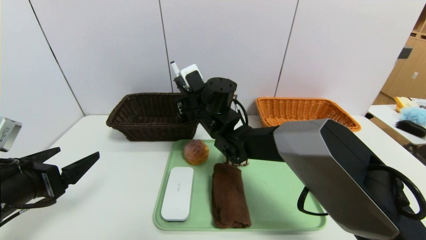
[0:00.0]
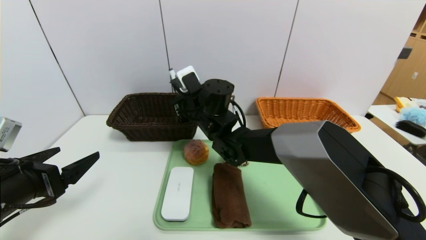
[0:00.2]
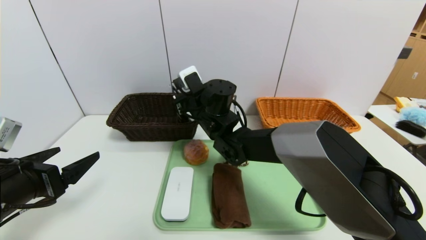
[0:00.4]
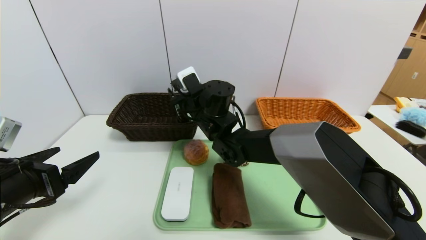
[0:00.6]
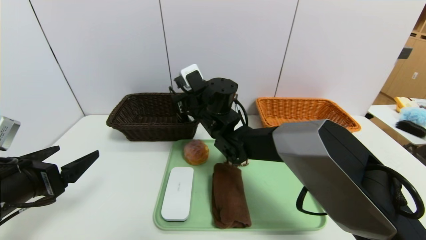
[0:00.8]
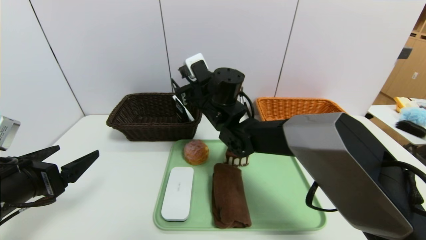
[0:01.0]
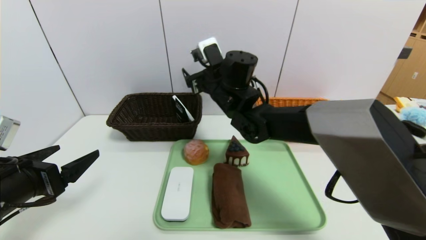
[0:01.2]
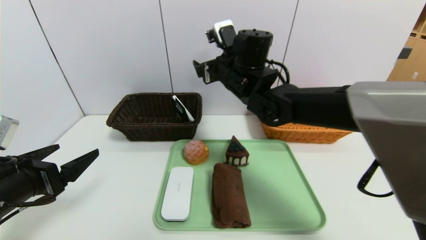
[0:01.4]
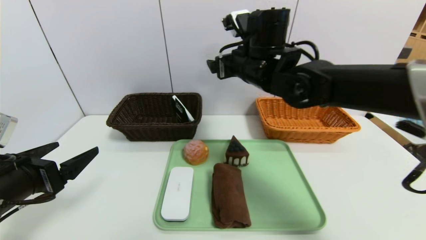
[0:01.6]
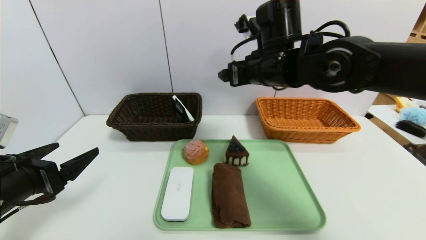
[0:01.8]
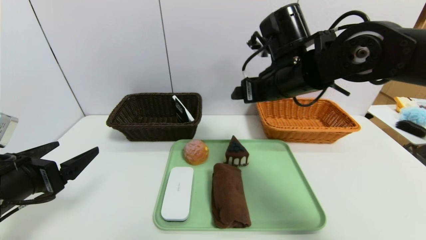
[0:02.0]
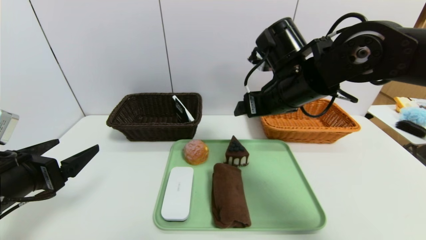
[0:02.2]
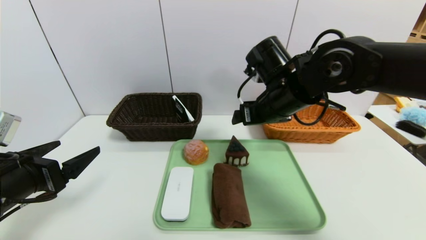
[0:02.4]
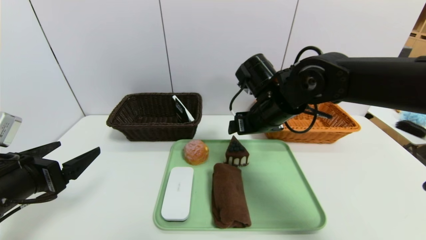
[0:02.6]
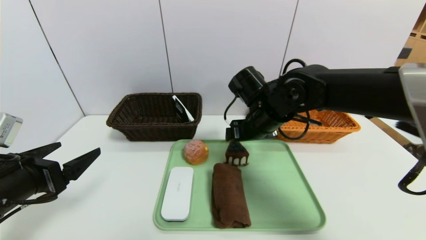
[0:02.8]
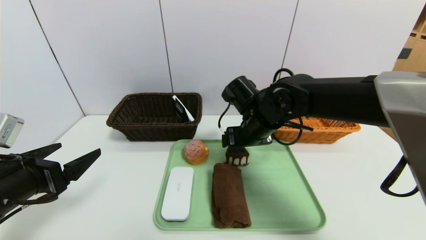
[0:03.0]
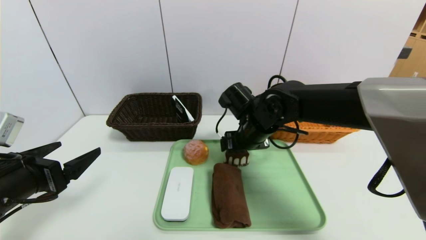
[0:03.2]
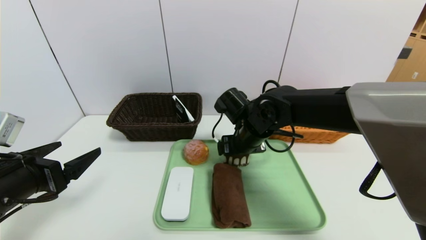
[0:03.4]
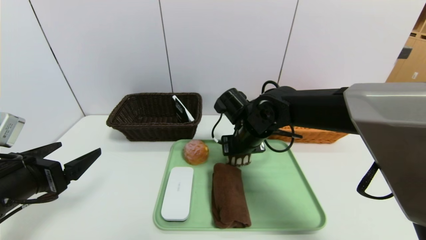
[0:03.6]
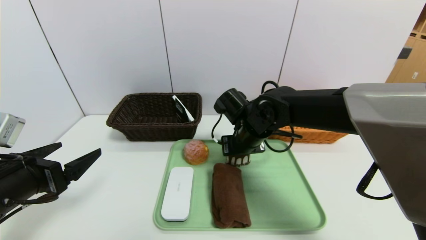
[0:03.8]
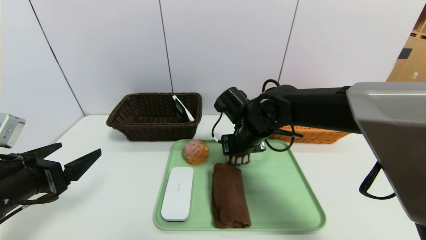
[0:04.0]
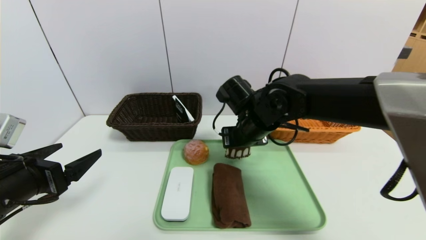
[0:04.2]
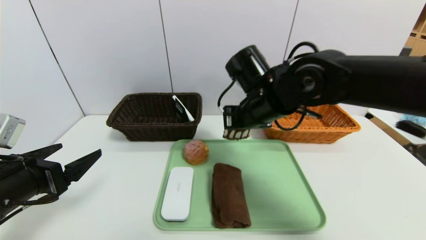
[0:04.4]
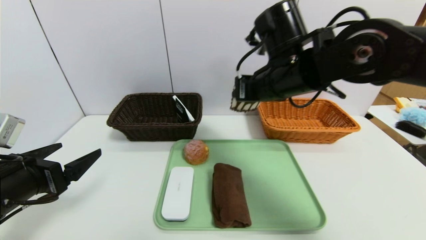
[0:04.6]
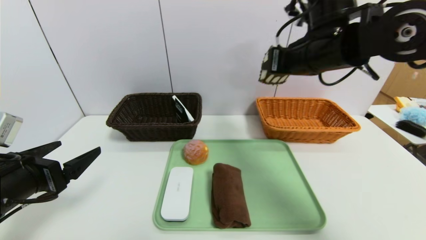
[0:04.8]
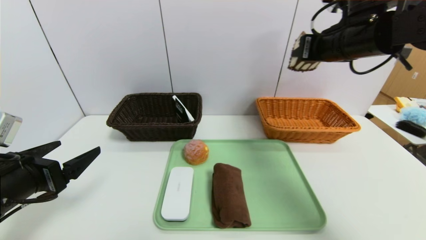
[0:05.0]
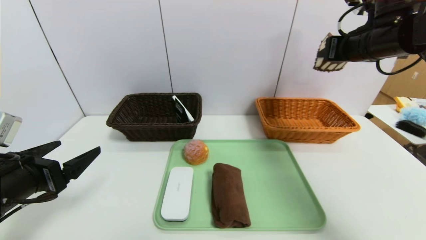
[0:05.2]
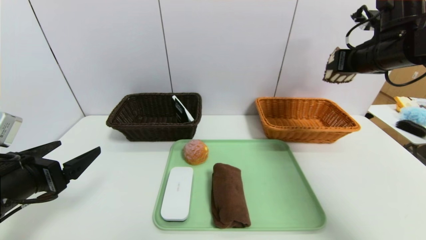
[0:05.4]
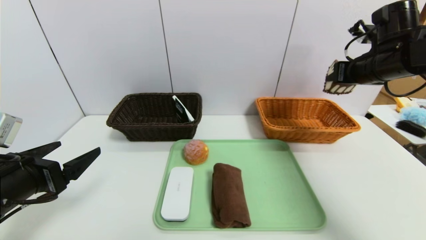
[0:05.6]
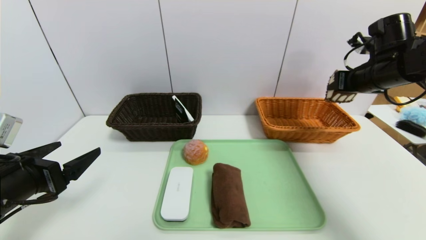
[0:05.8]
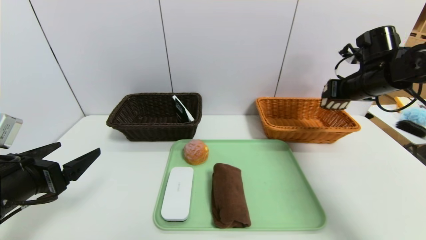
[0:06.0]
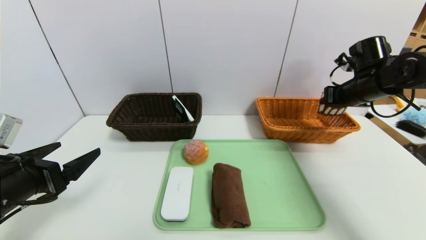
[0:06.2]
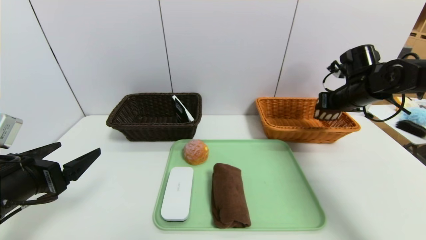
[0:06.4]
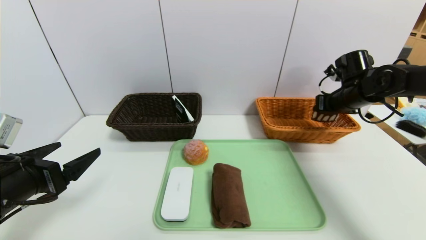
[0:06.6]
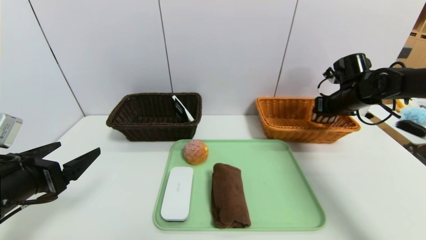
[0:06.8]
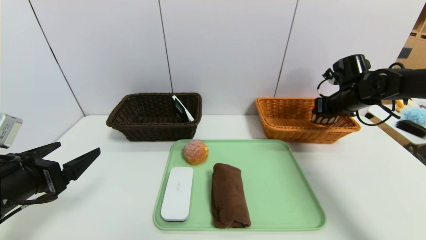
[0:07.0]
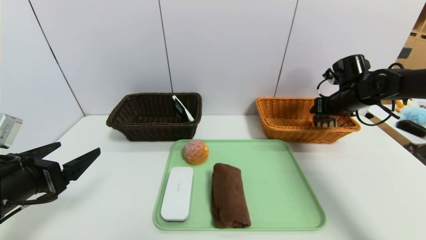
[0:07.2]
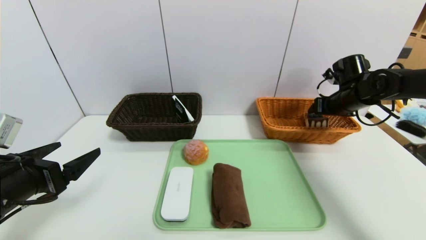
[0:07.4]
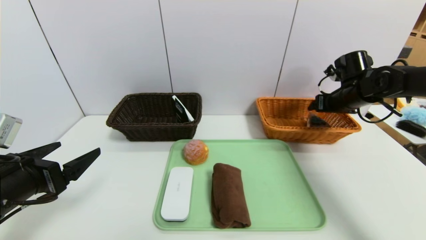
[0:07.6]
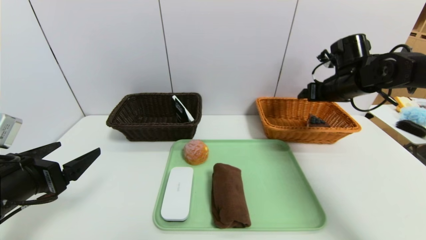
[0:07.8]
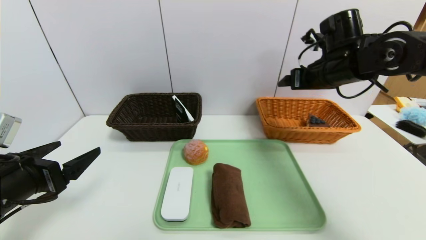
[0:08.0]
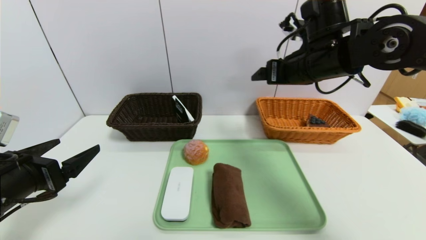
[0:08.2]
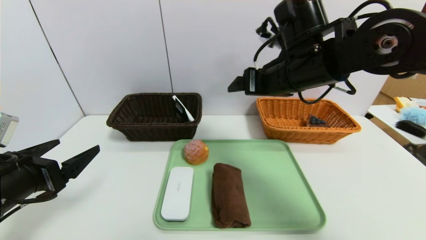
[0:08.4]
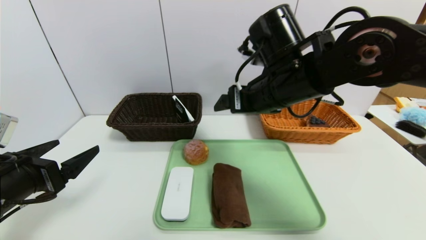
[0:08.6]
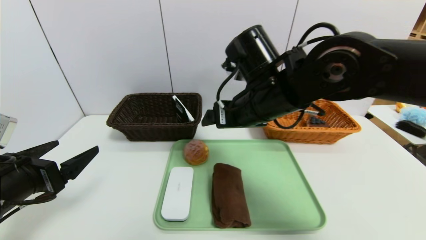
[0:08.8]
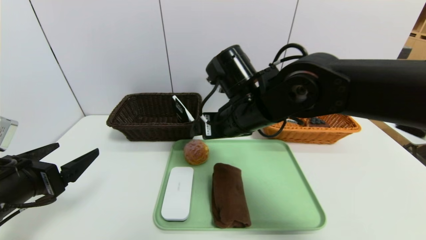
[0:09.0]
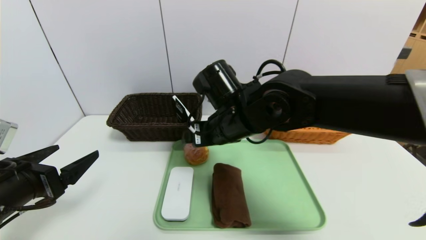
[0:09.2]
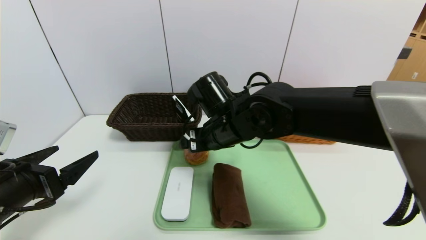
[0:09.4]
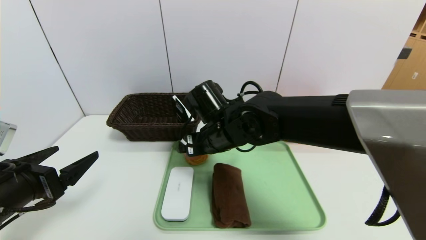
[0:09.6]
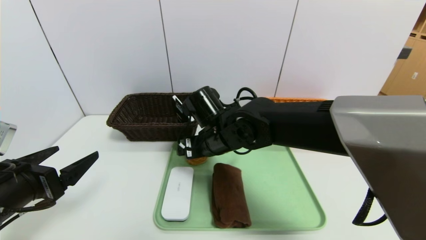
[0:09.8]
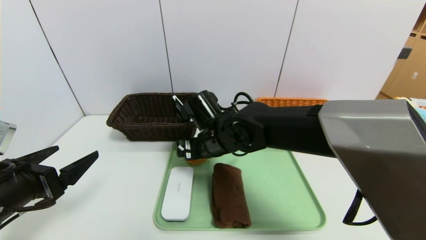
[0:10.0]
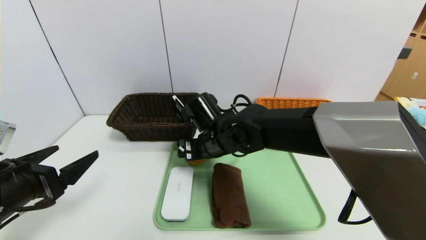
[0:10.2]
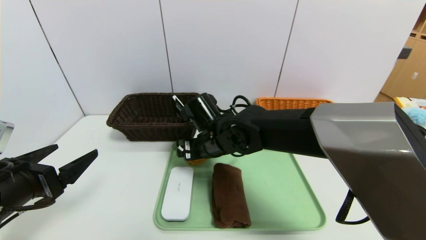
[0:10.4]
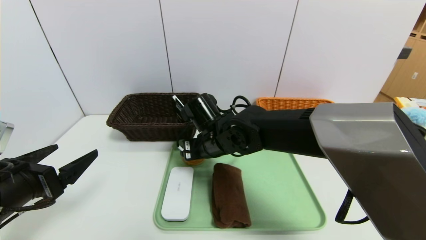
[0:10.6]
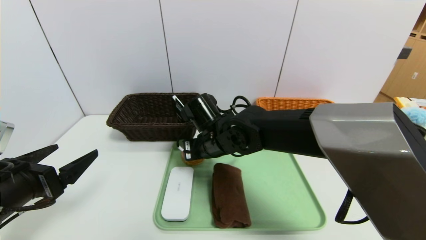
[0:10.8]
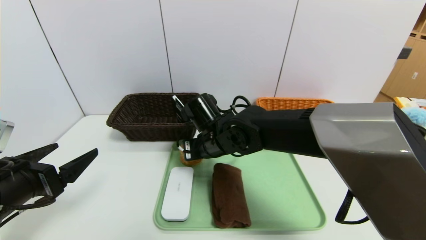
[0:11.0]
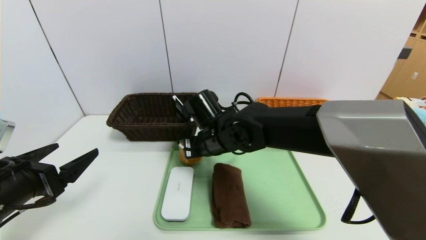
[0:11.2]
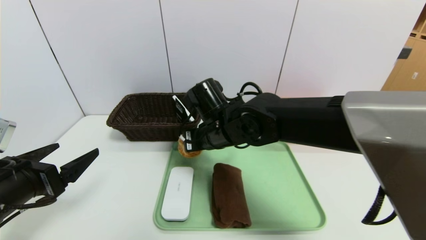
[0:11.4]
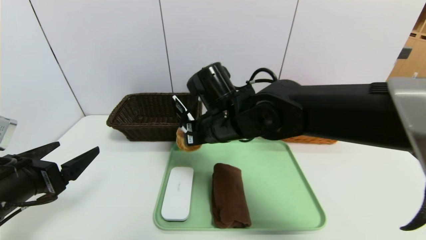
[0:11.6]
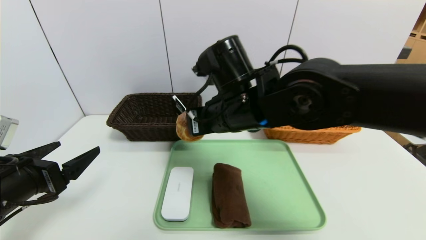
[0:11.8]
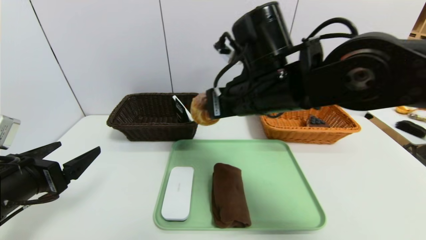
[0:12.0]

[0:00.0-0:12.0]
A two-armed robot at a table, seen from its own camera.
Task of the whole recording: place the food in the right basket with the right gripper, and place the non food items in the left basket with the left gripper.
Step, 0:02.2 to 0:07.8: Grasp the triangle cake and put it in the right basket.
0:00.0 to 0:01.6: The right gripper travels upward and to the right by approximately 15 cm, and opens up.
0:01.6 to 0:03.0: The right gripper goes approximately 10 cm downward.
0:03.0 to 0:04.4: The right gripper goes about 5 cm upward, and closes up.
0:04.4 to 0:06.0: The right gripper travels to the right by some 25 cm.
0:06.0 to 0:07.6: The right gripper changes place by approximately 5 cm, and opens up.
0:07.6 to 0:09.0: The right gripper goes approximately 30 cm to the left and backward.
0:09.0 to 0:10.4: The right gripper heads downward, covering roughly 10 cm.
0:10.4 to 0:12.0: The right gripper shifts approximately 15 cm upward and to the right, and closes up.

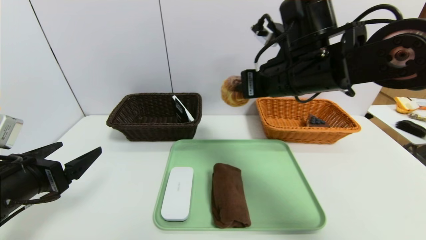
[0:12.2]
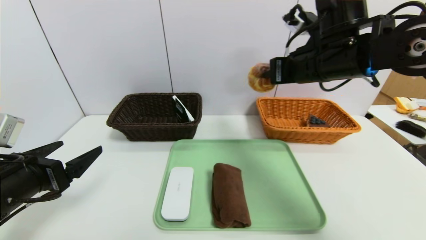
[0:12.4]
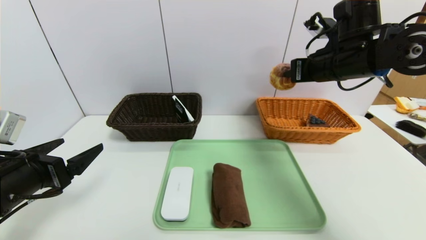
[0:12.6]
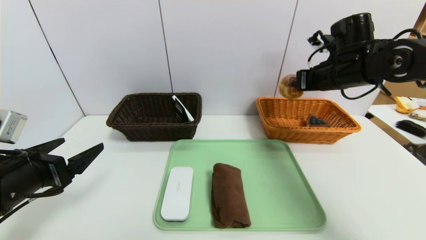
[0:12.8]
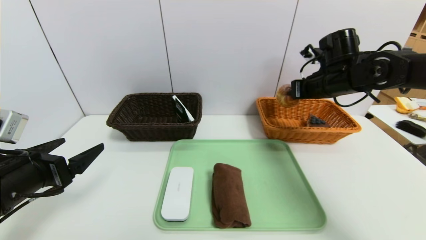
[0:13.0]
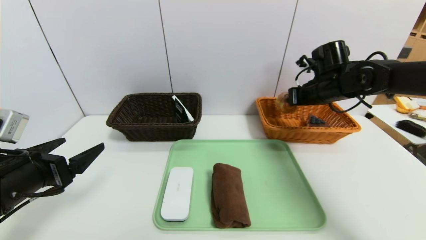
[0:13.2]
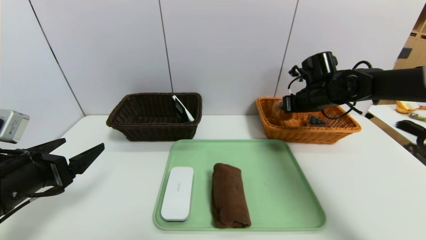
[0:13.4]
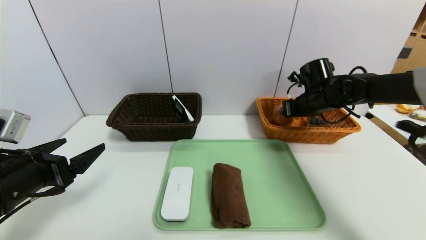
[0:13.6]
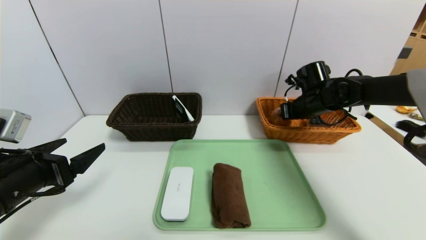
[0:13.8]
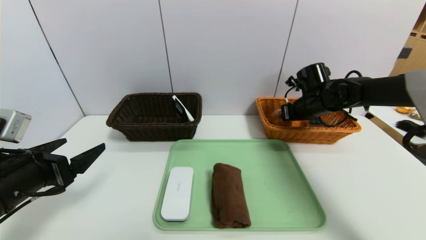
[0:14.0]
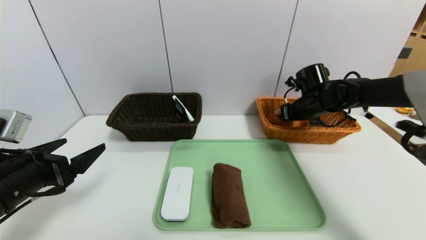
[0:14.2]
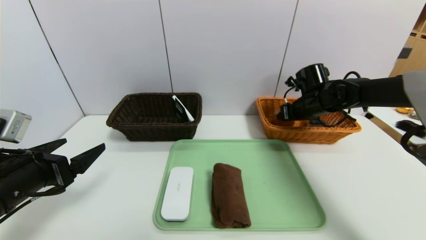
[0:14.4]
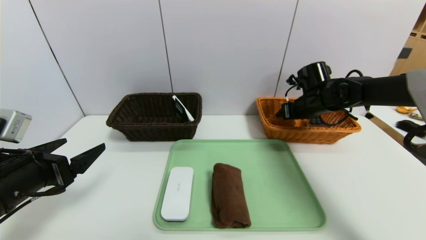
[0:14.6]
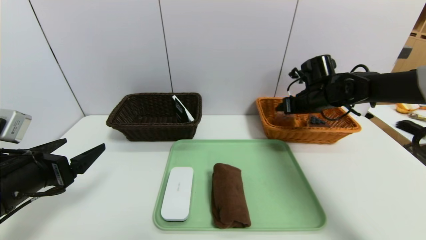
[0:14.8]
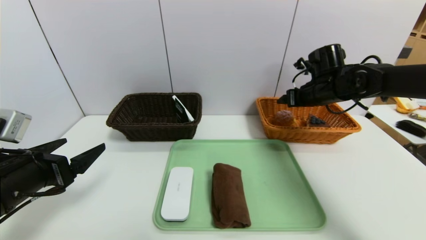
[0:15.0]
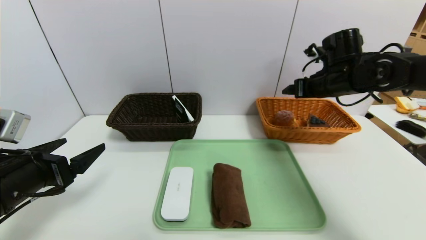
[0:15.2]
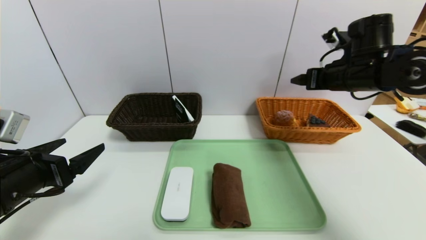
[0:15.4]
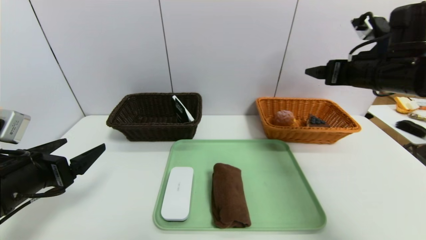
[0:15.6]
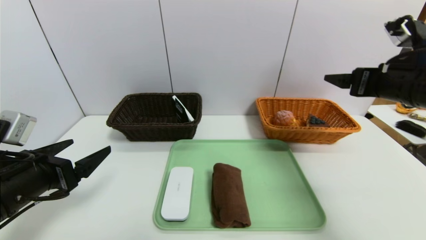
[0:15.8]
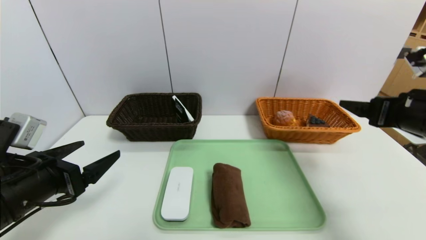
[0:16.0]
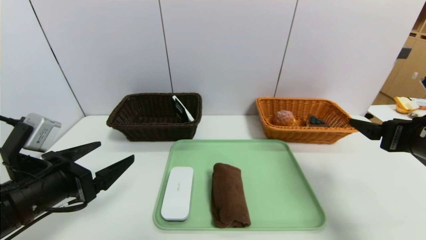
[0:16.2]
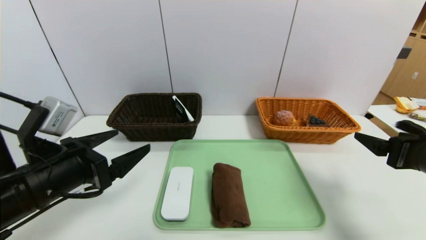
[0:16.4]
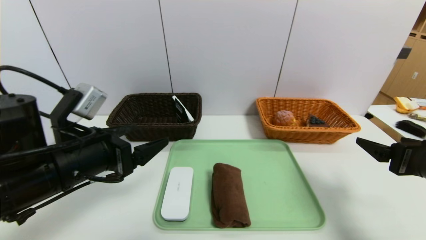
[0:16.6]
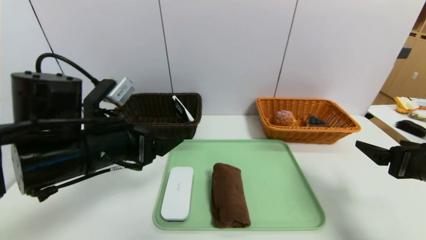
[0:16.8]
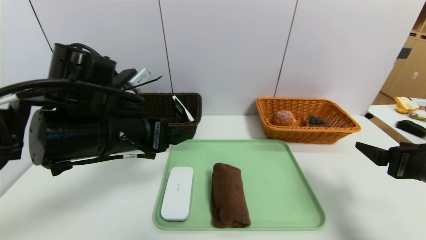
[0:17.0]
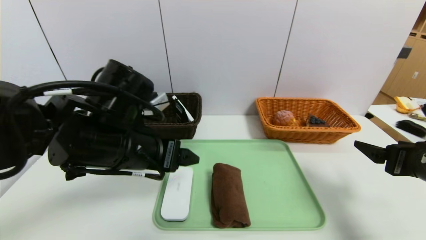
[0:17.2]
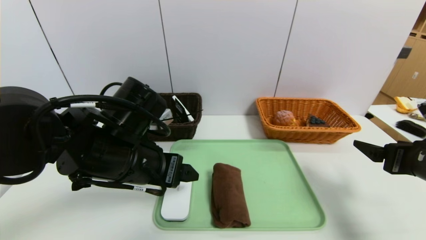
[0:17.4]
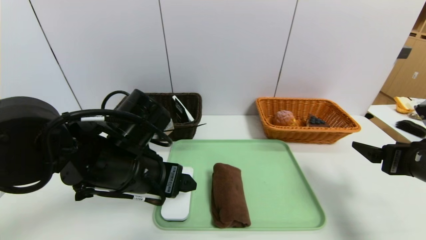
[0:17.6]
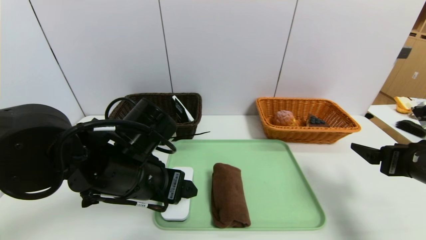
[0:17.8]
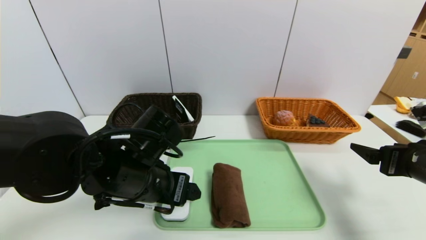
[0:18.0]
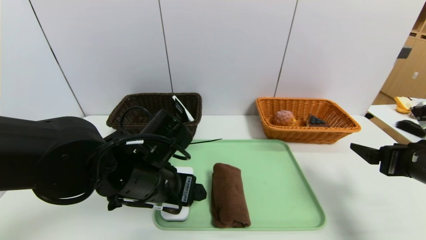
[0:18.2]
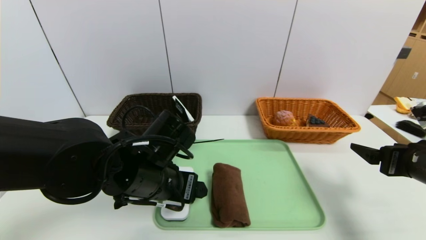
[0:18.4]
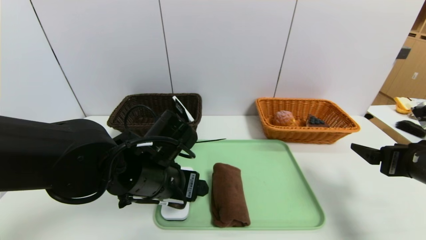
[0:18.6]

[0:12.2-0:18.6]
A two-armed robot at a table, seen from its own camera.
Task of the whole recording: place the food in the right basket with the right gripper, and place the non food items in the left basket with the left gripper.
Step, 0:12.2 to 0:15.2: Grasp the round bread and put it in the right basket.
0:12.2 to 0:13.8: The right gripper shifts roughly 25 cm forward, downward and to the right.
0:13.8 to 0:15.4: The right gripper shifts some 15 cm upward and backward, and opens.
0:15.4 to 0:17.0: The left gripper shifts approximately 15 cm to the right, upward and forward. Meanwhile the right gripper moves backward and downward, roughly 20 cm.
0:17.0 to 0:18.6: The left gripper goes roughly 10 cm downward and to the right.
